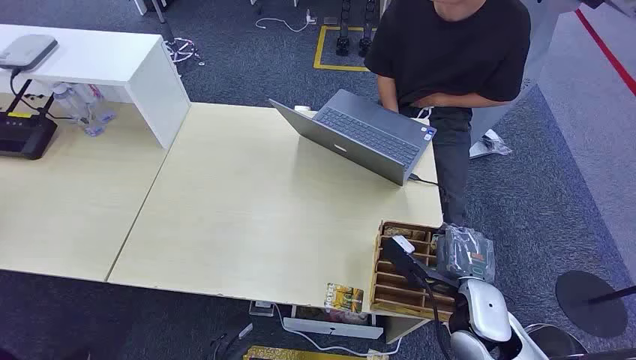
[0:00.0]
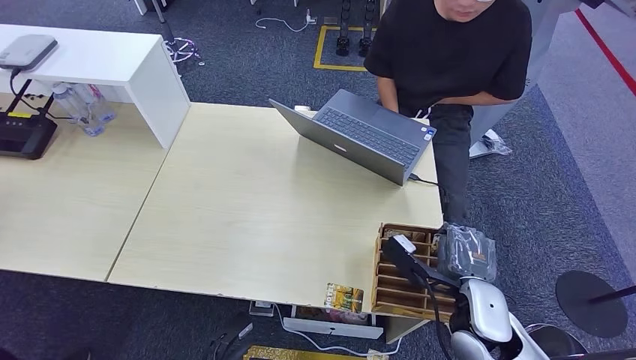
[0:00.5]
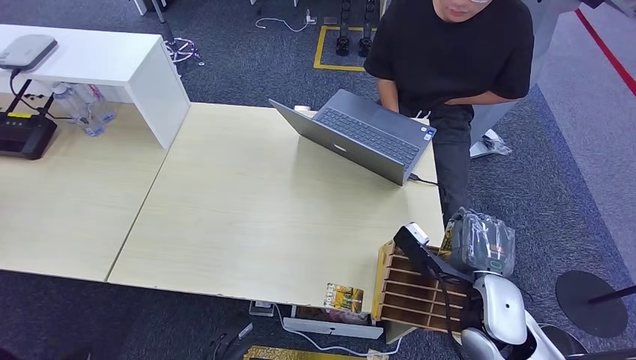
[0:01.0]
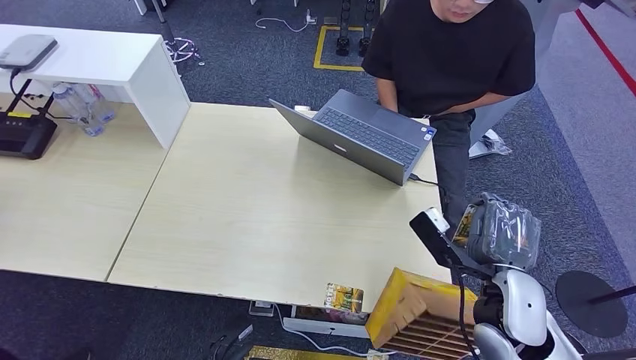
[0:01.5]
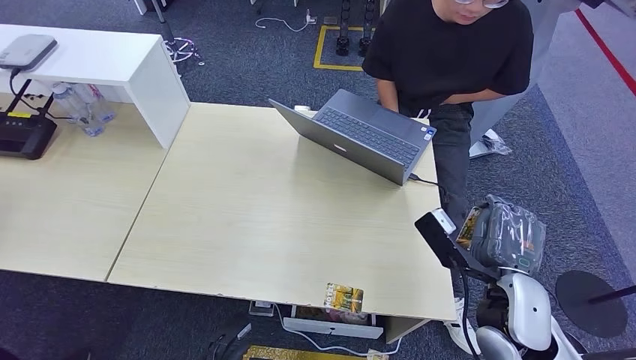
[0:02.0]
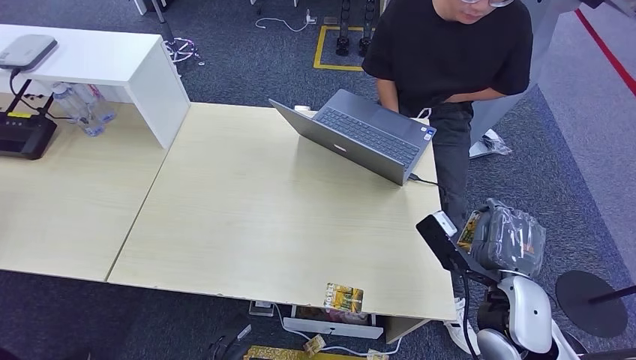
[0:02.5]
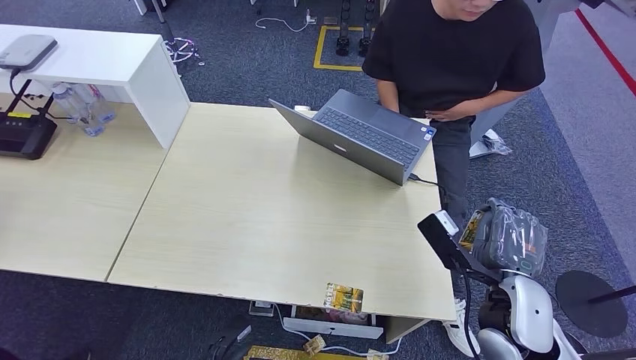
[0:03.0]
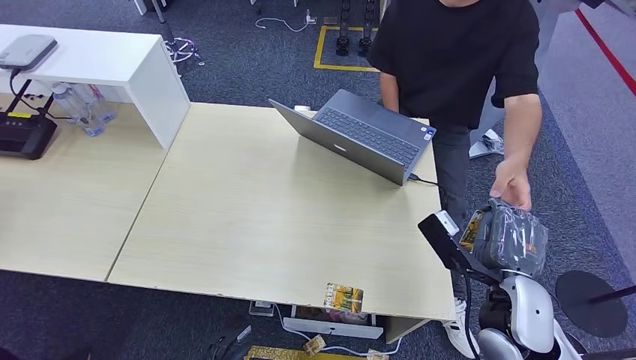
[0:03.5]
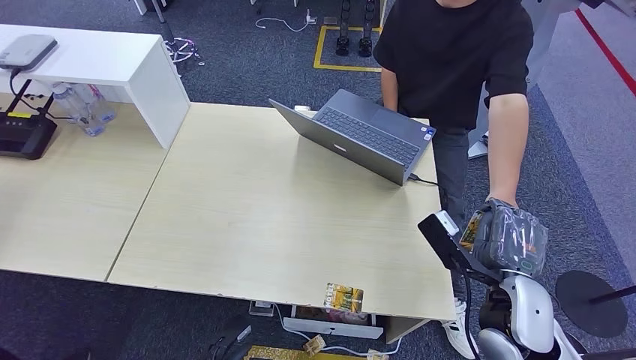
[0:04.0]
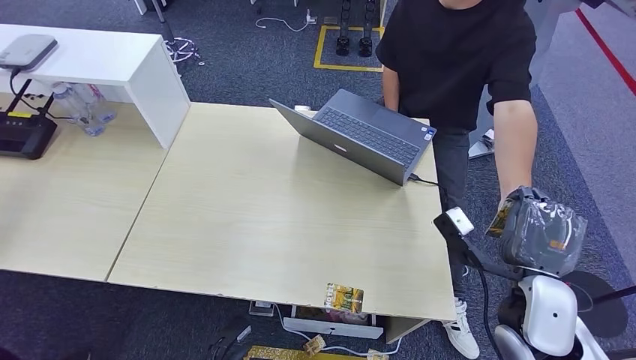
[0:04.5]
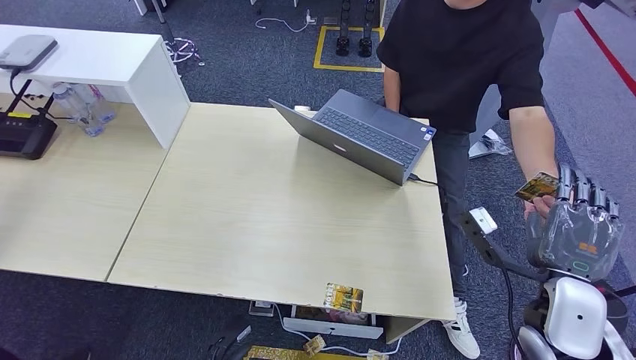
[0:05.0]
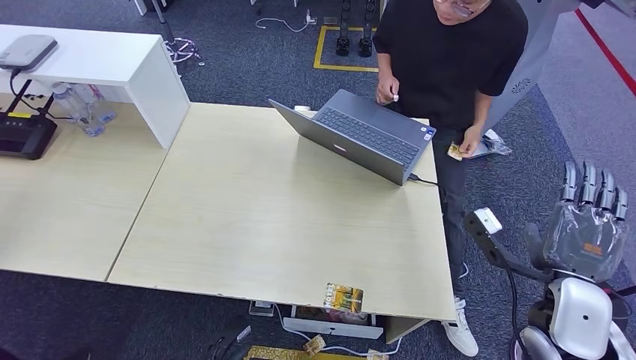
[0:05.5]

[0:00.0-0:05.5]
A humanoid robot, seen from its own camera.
Step, 0:00.0 to 0:01.5: Pick up the key card from the card box.
Step, 0:02.0 to 0:05.5: Hand the key card to the target.
0:02.0 to 0:03.5: The two hands keep their place.
0:03.5 to 0:05.5: The right hand heads to the right, covering some 5 cm.

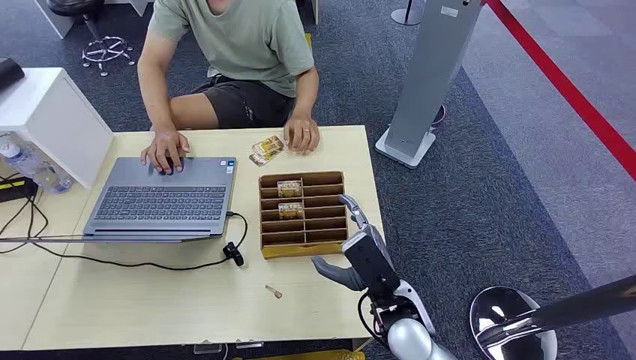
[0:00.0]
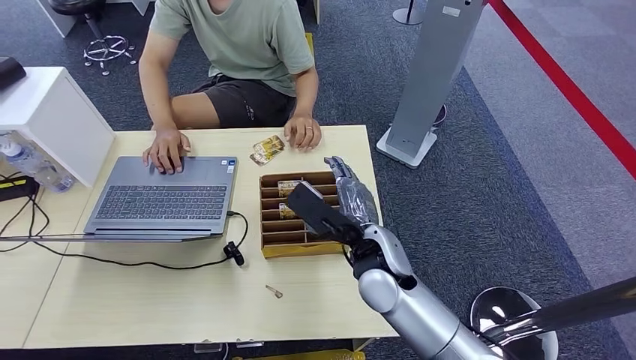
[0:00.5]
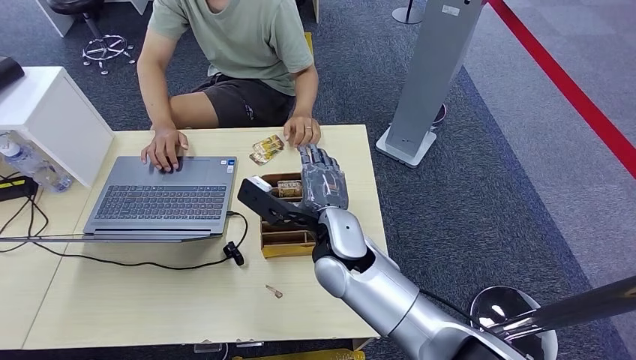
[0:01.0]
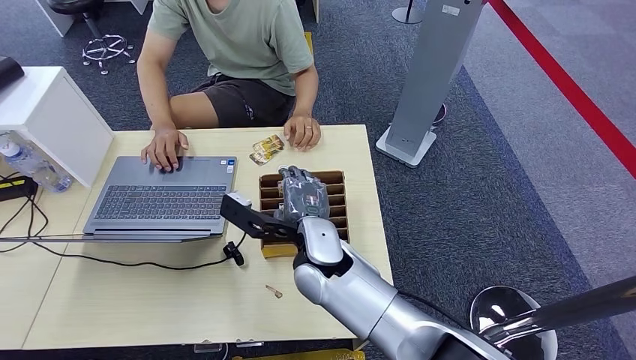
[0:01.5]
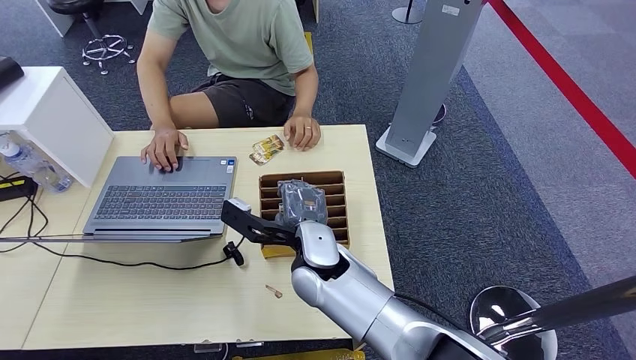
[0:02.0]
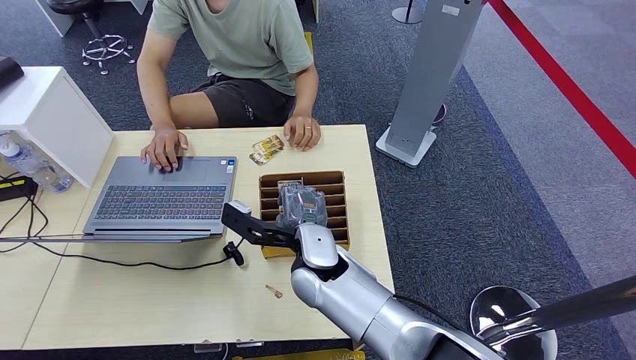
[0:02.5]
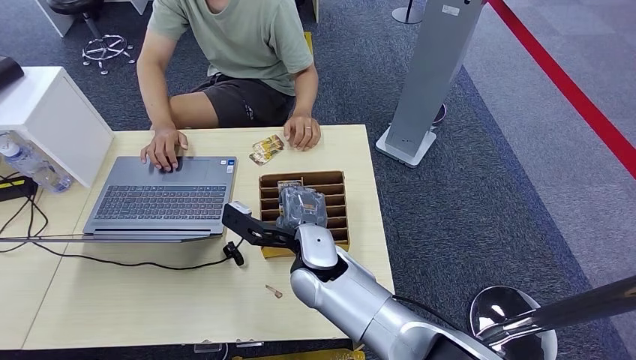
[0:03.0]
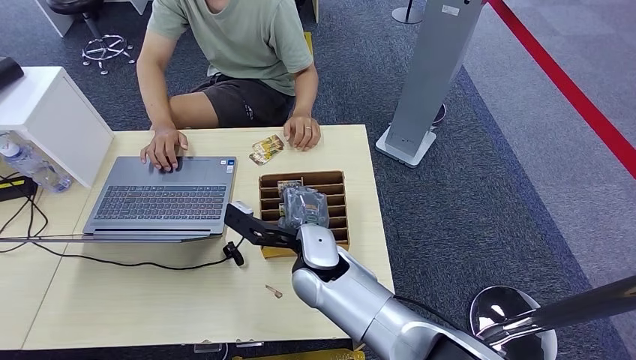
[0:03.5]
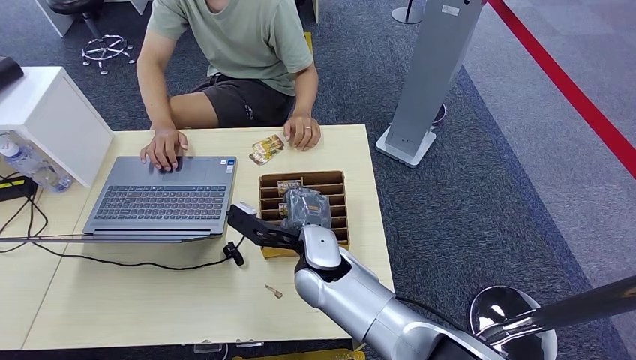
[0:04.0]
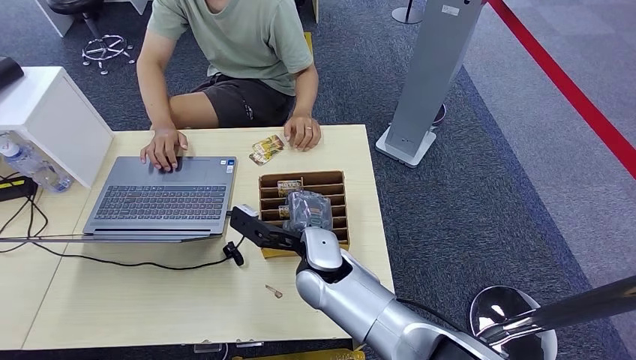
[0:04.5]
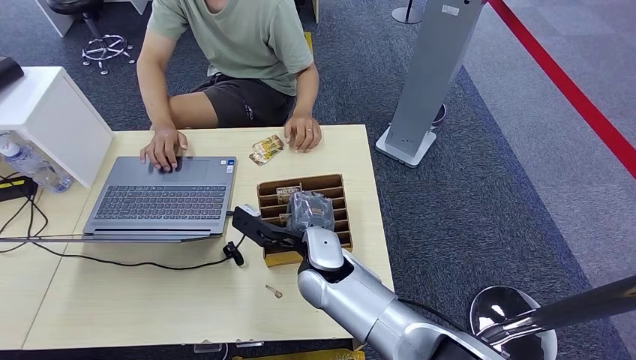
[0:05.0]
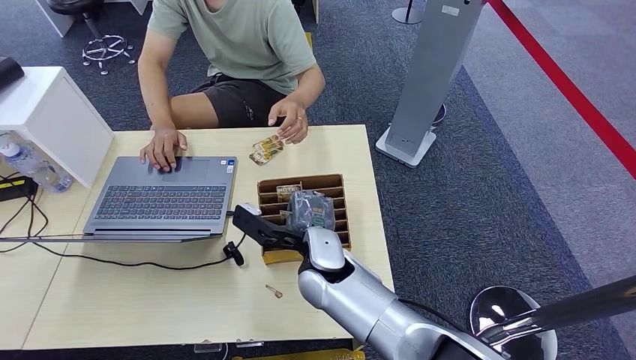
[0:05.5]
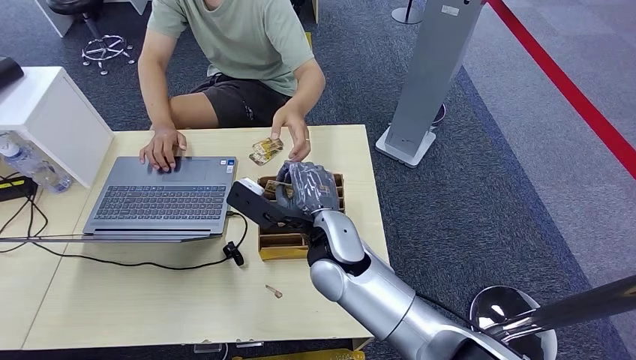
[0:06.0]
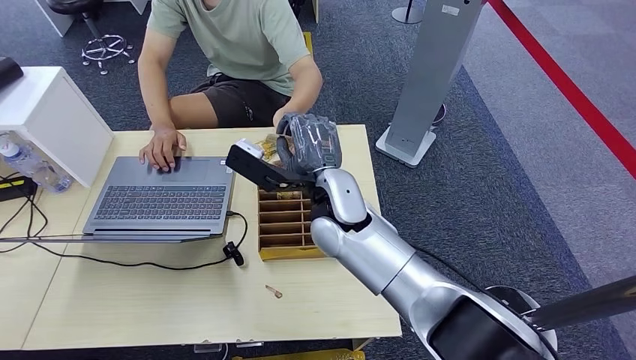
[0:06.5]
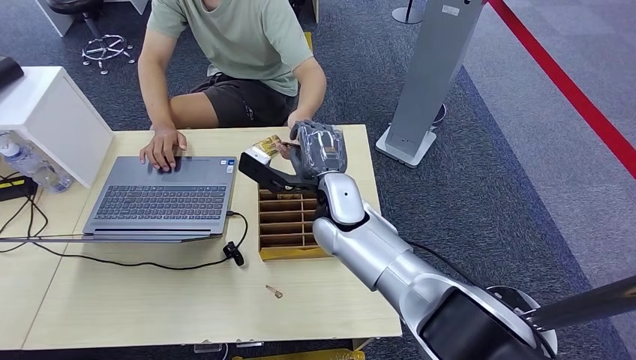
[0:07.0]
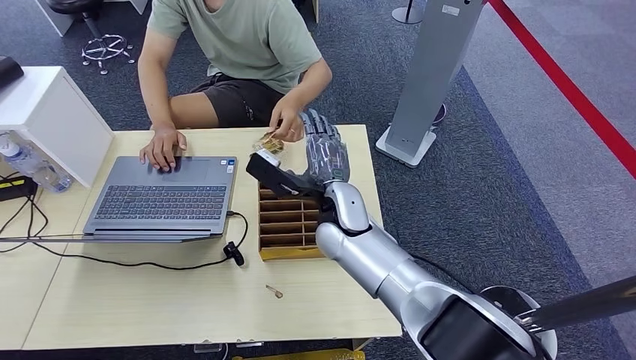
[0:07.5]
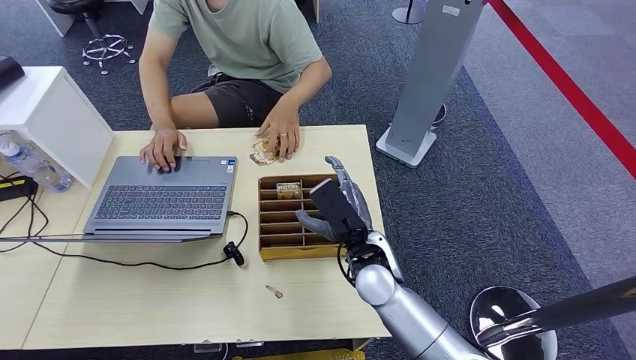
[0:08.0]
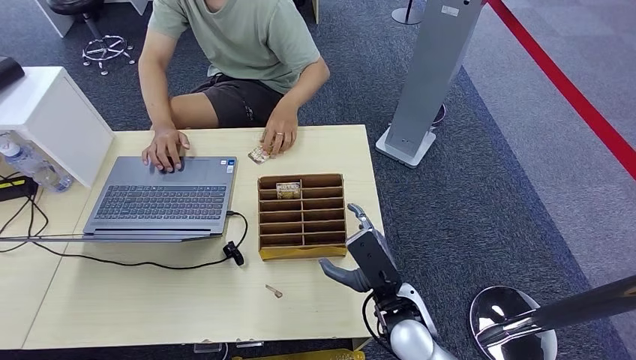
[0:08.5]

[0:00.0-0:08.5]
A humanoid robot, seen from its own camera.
Step, 0:00.0 to 0:06.0: Pick up the key card from the card box.
Step, 0:06.5 to 0:08.5: Hand the key card to the target.
0:02.0 to 0:04.0: The two hands keep their place.
0:04.0 to 0:06.5: The right hand travels upward and forward by about 10 cm.
0:06.5 to 0:08.5: The right hand shifts some 20 cm downward, backward and to the right.
